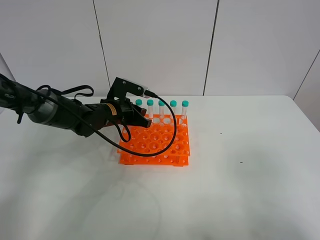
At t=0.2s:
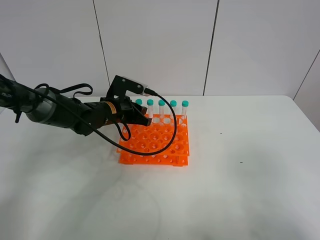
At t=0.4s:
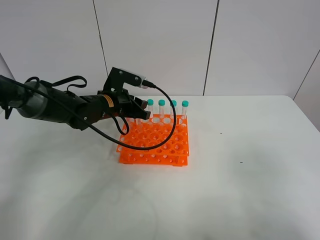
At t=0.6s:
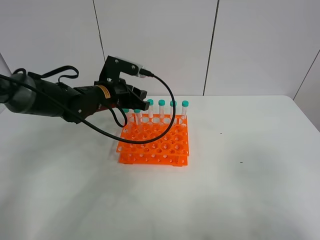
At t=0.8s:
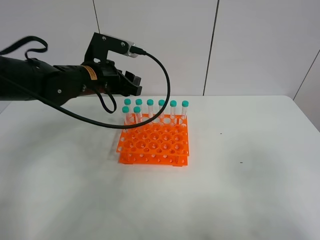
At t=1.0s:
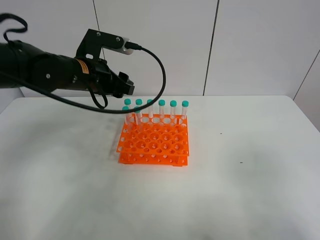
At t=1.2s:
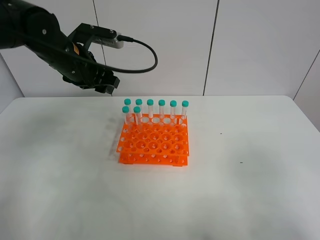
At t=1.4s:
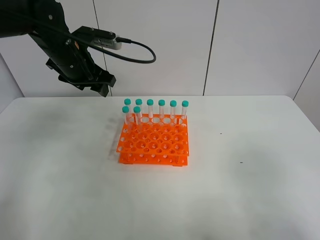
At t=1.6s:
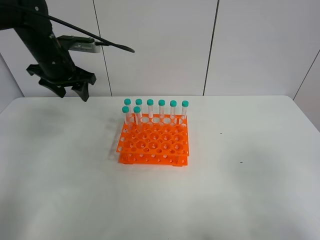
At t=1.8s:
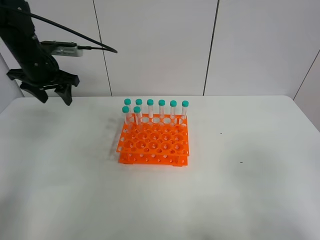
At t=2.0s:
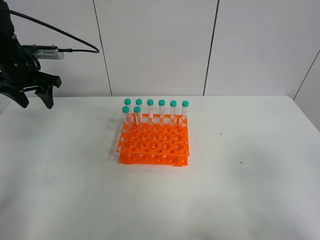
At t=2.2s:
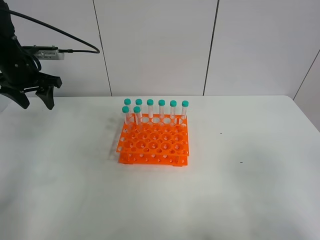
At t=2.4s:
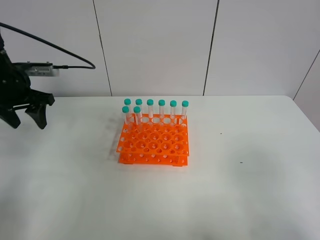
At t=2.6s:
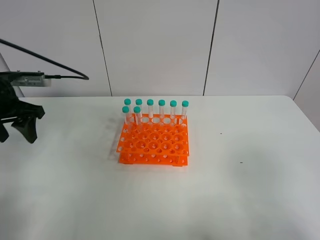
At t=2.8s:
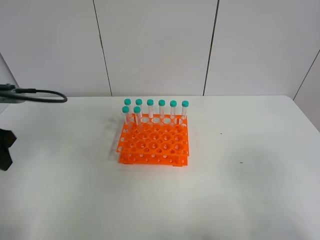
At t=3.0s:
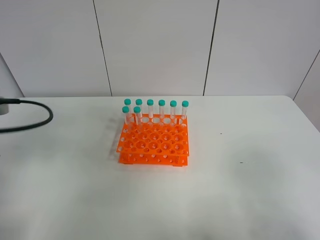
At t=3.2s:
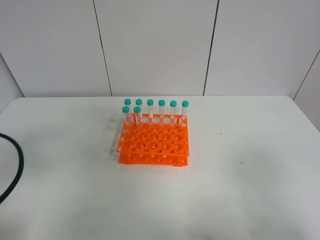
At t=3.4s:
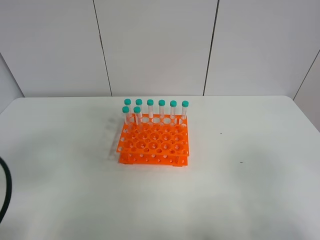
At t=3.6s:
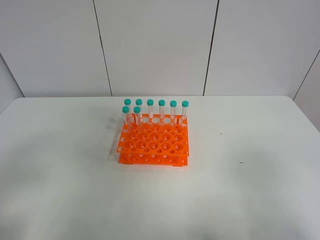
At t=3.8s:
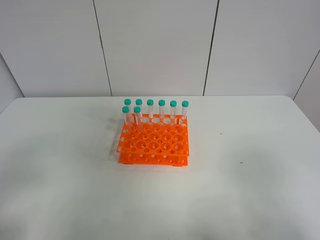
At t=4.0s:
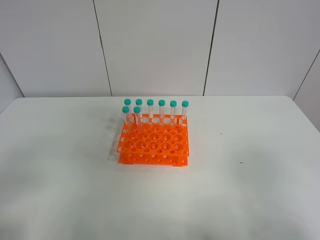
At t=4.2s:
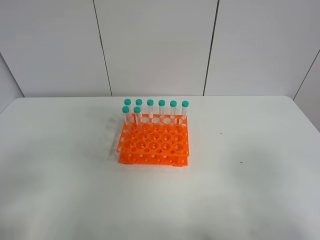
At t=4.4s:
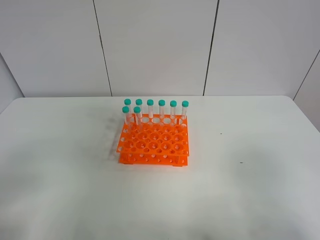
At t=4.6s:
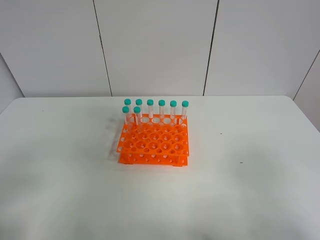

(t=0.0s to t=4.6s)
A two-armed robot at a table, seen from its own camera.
Task of the whole recording: Put the test tube on the table back onto the test tube rack.
t=0.0s - t=1.6s: The left gripper goes about 20 cm upward and to the left, and opens.
t=1.6s - t=3.0s: The left gripper shifts roughly 25 cm backward.
t=3.0s - t=4.6s: The left gripper moves backward, some 15 cm.
